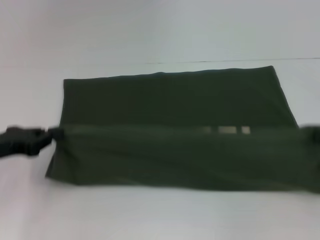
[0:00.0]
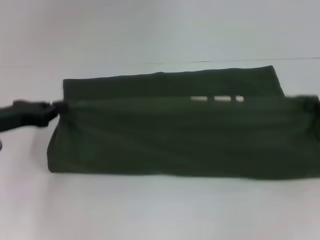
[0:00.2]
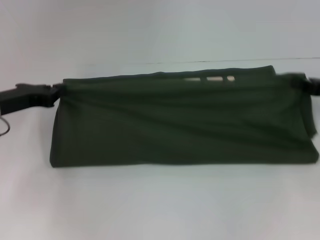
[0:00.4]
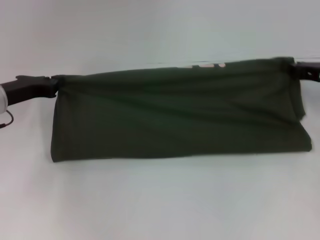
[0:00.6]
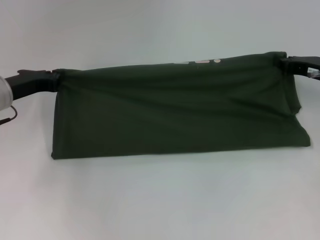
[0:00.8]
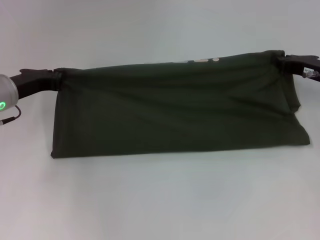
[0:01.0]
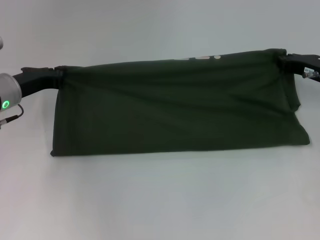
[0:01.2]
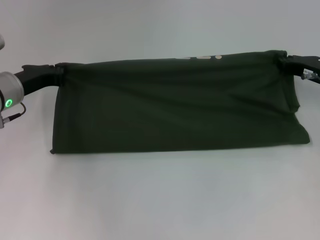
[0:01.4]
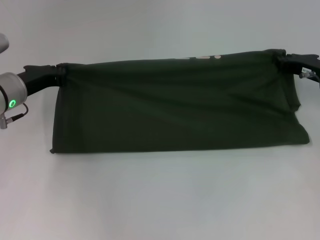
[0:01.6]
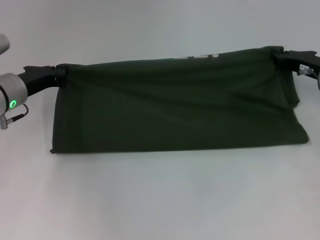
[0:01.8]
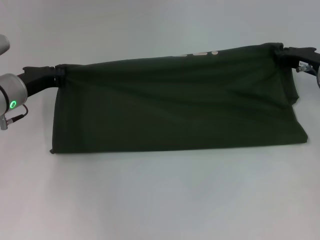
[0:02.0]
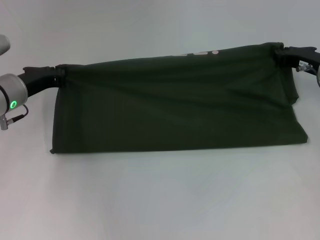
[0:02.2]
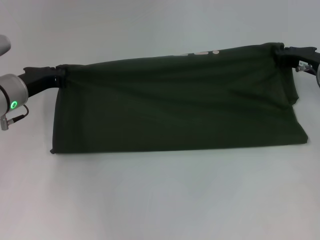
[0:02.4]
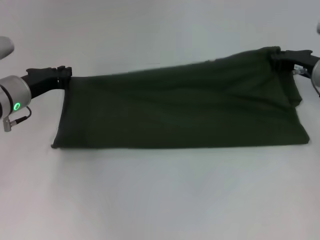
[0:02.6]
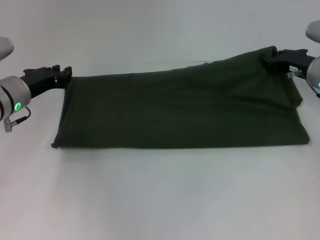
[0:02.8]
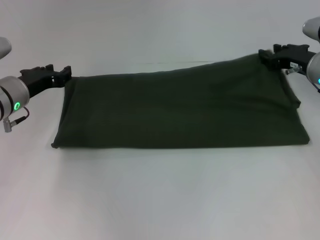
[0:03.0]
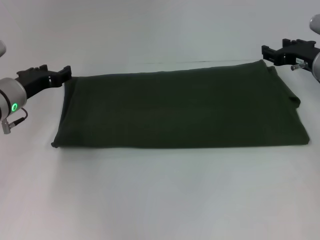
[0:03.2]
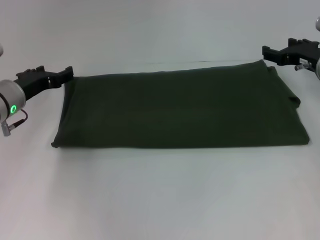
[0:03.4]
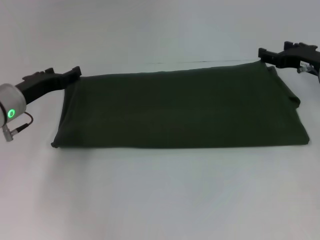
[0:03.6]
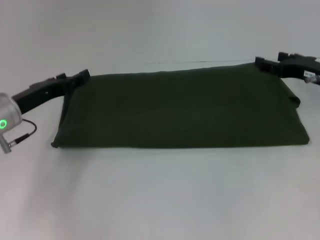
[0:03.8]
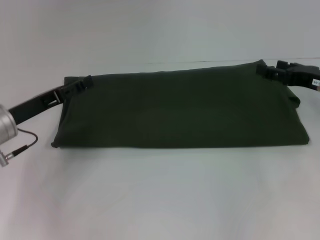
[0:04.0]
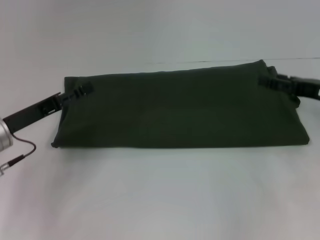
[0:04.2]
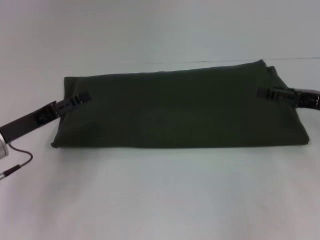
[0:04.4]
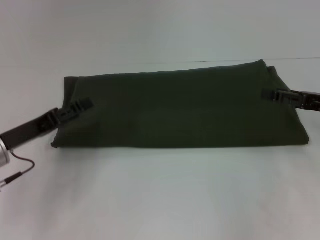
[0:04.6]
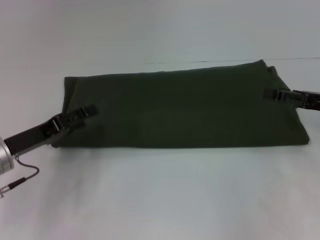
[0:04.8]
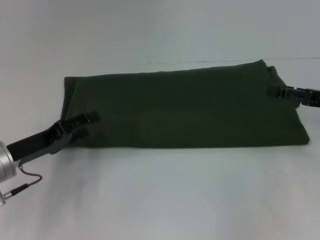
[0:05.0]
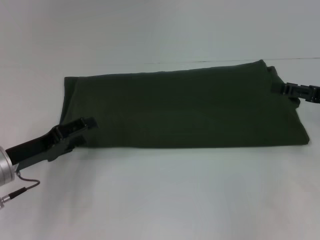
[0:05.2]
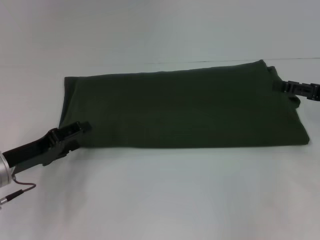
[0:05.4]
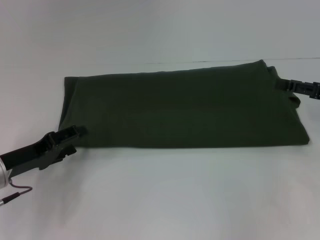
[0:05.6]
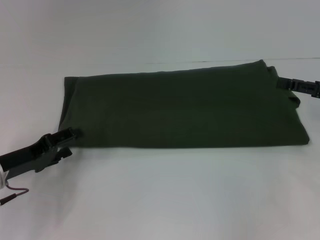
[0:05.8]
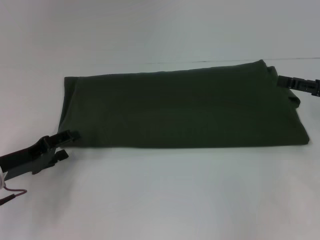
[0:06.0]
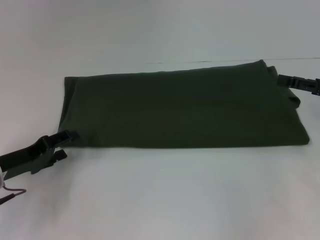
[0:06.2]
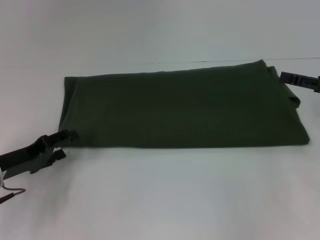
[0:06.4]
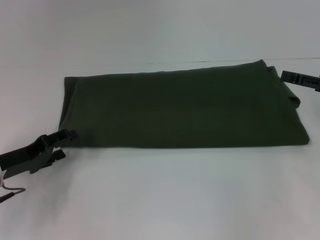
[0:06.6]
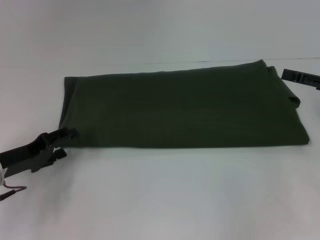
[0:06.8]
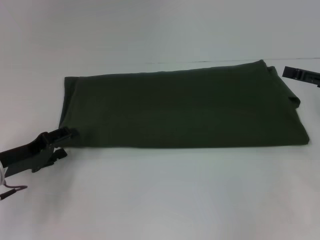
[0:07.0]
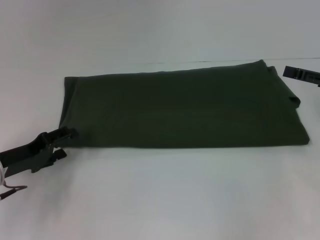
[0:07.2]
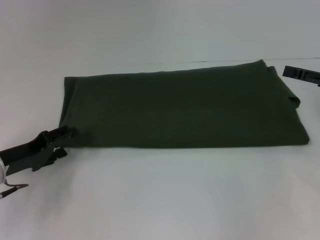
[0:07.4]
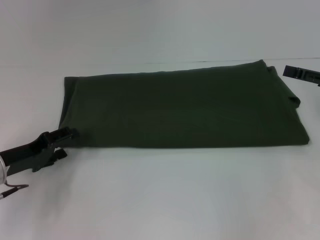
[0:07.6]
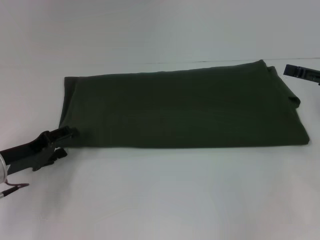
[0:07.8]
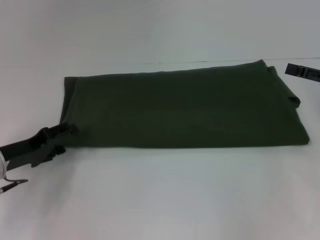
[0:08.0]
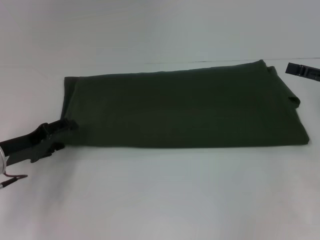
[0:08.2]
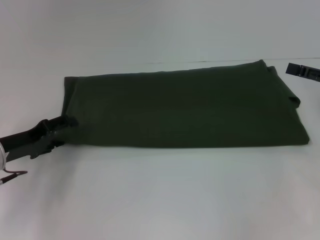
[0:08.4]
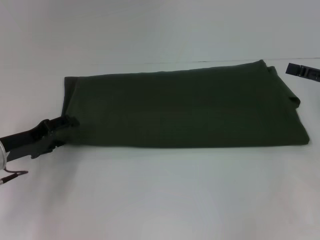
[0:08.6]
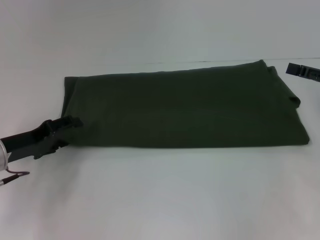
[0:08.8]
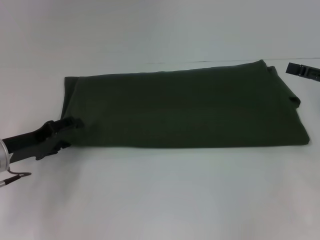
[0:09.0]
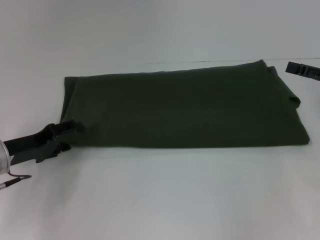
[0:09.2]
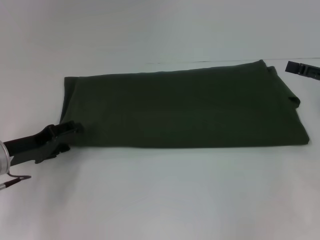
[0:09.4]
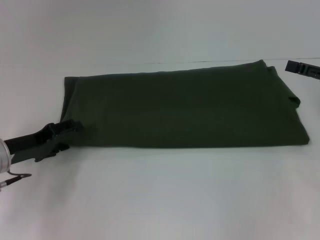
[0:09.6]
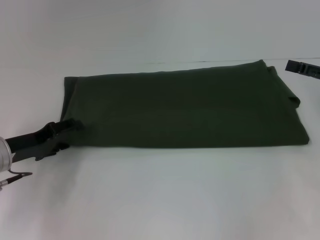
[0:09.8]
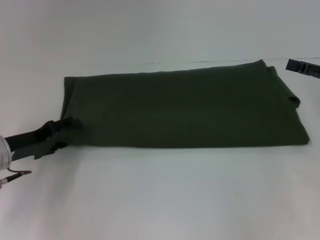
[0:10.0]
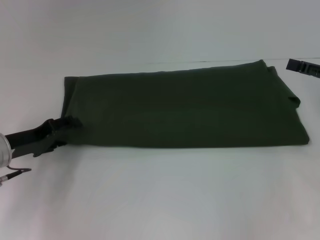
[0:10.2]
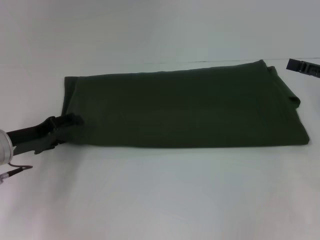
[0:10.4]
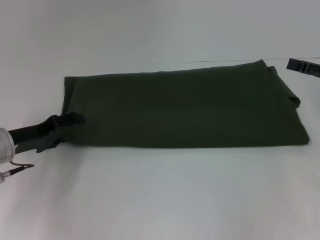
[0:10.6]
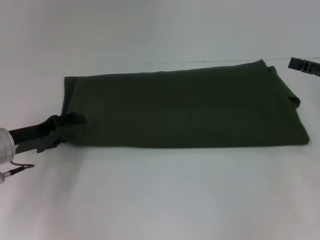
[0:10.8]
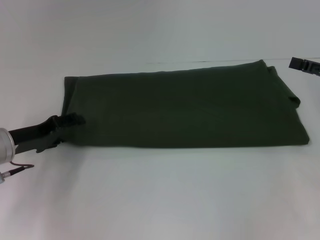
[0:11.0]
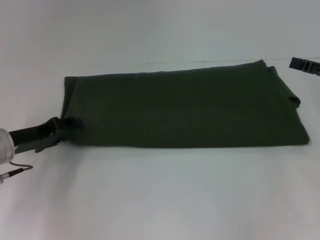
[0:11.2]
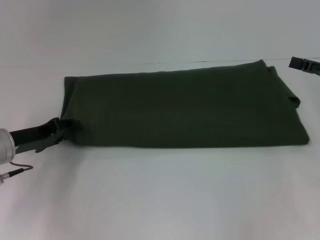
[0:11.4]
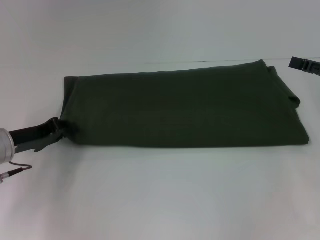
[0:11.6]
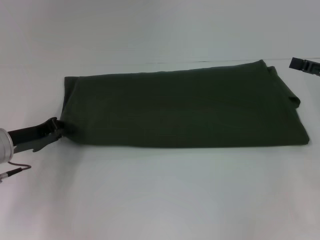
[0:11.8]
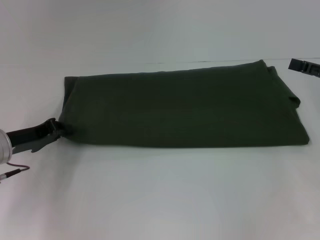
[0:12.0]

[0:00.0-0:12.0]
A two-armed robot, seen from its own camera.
Step, 0:00.0 to 0:04.0: Fold the clothes with your right hand.
0:00.0 to 0:01.6: The right gripper shifts about 15 cm forward and to the left; the left gripper shifts about 15 cm forward and to the right.
0:01.6 to 0:03.0: The grippers move only a little.
0:03.0 to 0:04.4: Both grippers travel together backward, approximately 10 cm. The right gripper opens up, while the left gripper opens.
0:06.0 to 0:07.6: Neither gripper changes place.
0:07.6 to 0:10.4: The grippers stay close to where they were, moving slightly.
0:10.4 to 0:12.0: The left gripper closes its fingers.

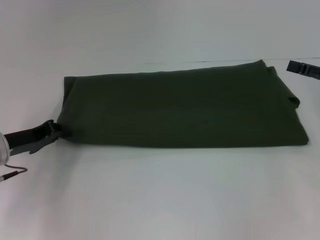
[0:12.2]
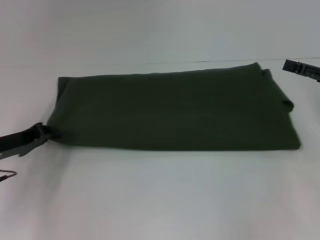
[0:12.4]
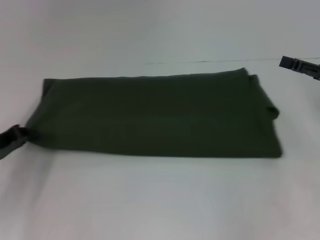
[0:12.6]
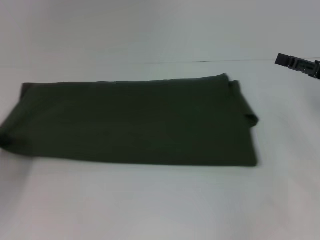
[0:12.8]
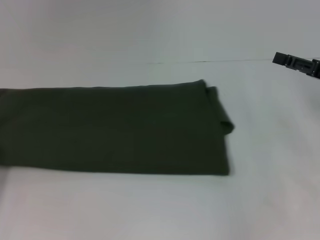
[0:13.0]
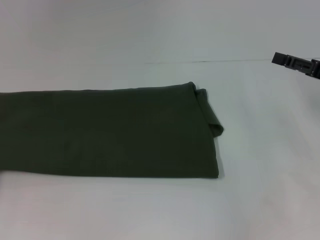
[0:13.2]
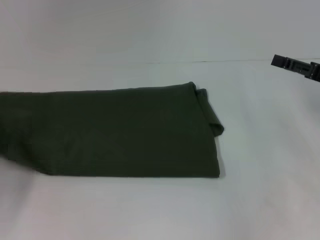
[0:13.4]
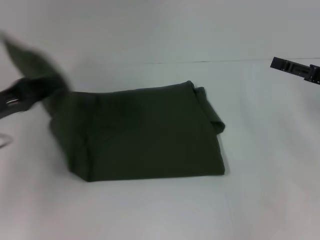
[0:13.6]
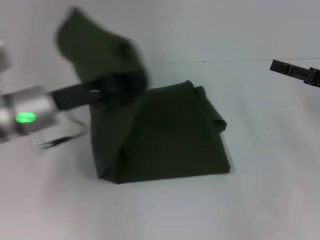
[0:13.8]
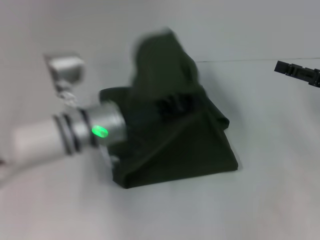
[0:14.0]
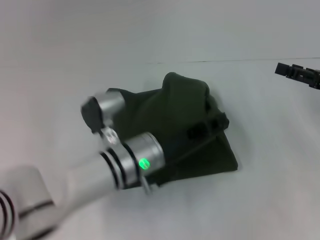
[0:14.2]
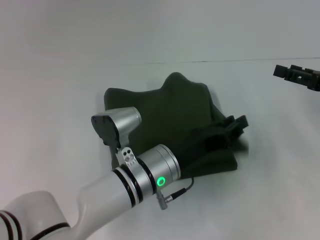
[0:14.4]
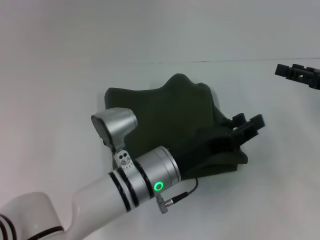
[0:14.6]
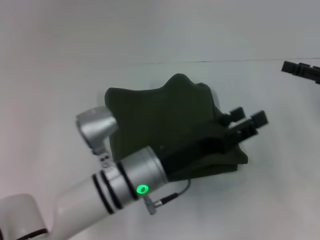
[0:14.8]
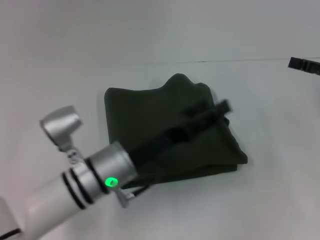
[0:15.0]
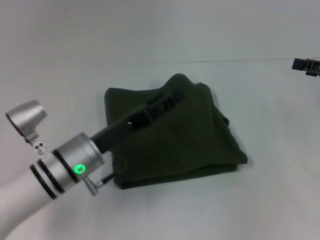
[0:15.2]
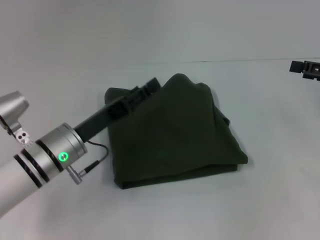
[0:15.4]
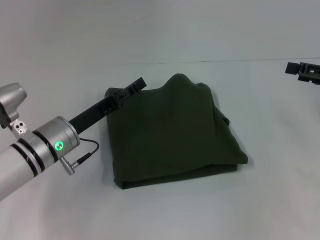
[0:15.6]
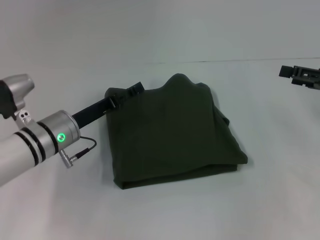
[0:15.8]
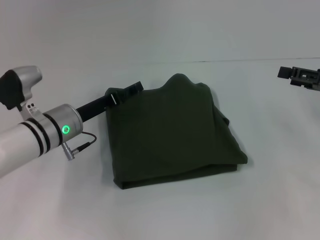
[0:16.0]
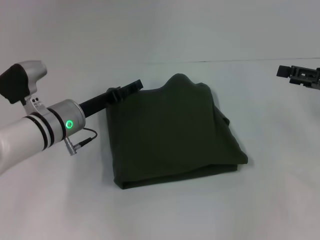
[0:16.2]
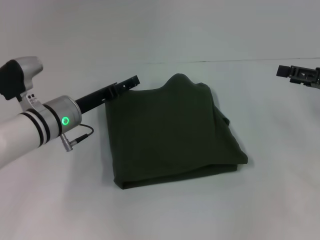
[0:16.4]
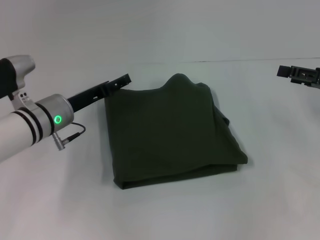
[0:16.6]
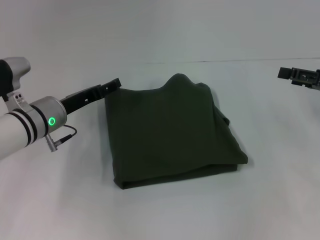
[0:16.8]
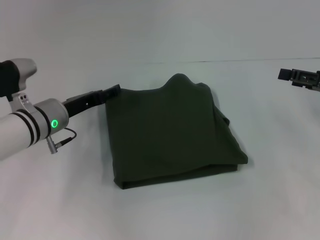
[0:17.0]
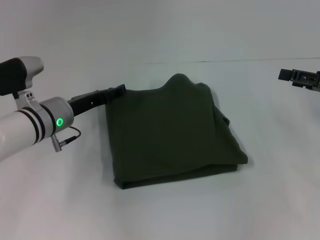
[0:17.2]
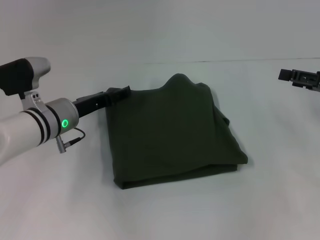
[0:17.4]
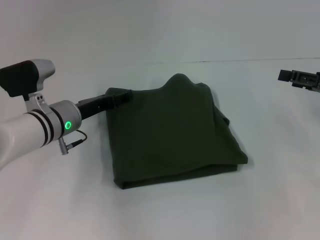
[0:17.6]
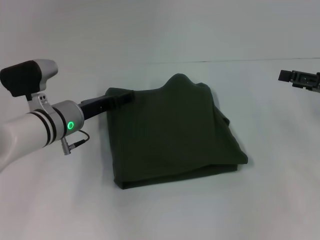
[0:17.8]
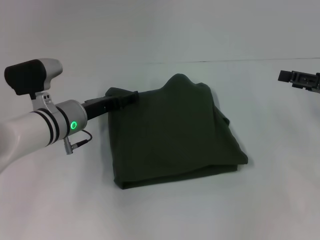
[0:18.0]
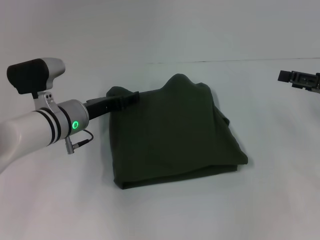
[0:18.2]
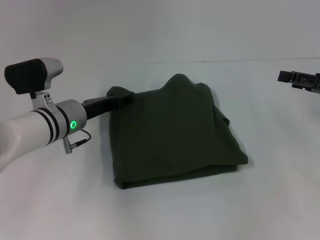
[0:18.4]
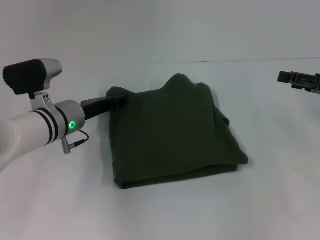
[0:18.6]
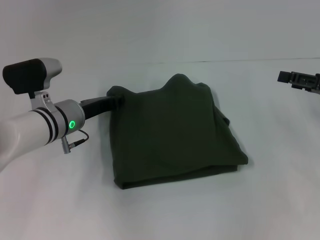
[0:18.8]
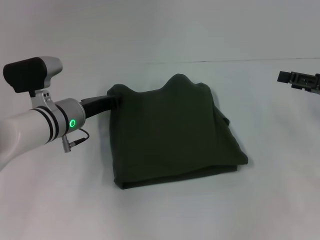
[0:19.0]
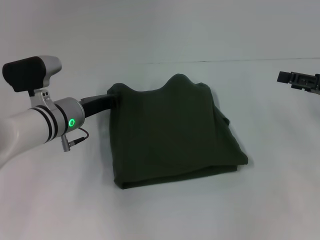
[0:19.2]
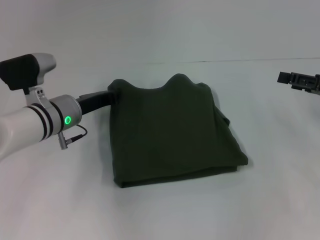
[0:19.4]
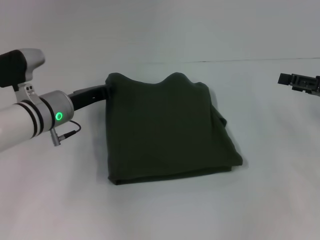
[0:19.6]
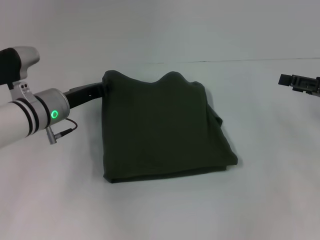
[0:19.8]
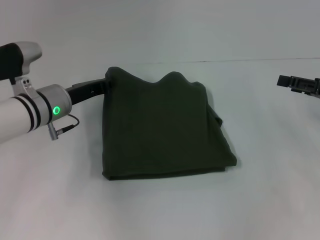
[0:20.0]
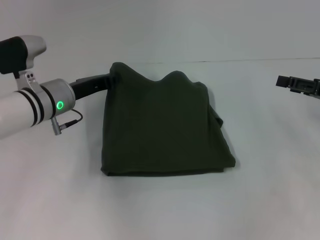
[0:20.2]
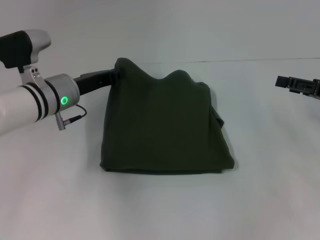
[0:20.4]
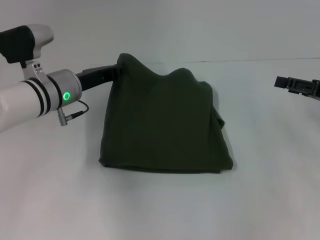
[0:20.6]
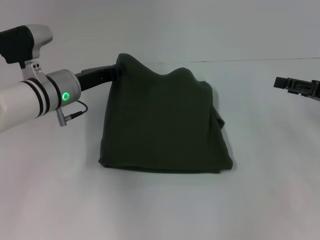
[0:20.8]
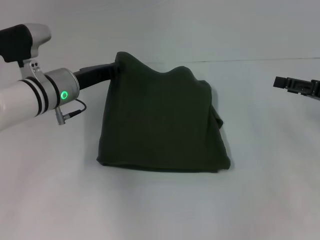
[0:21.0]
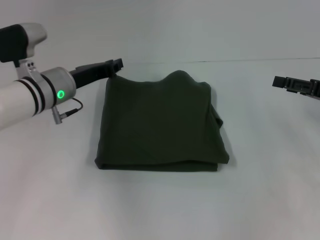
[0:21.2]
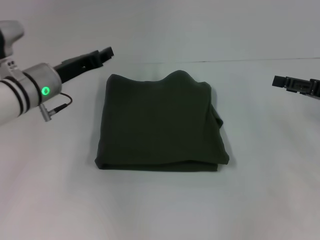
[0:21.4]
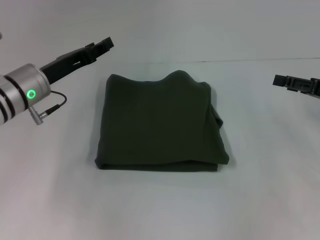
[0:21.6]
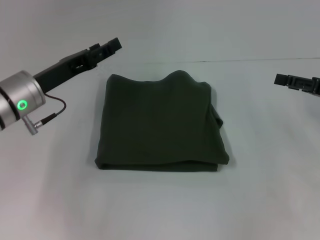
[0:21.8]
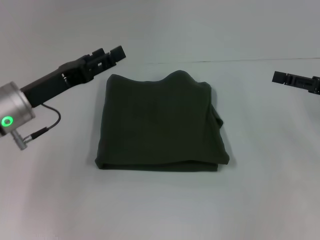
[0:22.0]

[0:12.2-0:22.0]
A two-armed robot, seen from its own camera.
Step, 0:12.2 to 0:14.6: Fold the clothes with your left hand.
0:12.2 to 0:13.6: The left gripper shifts about 5 cm upward, and travels to the left and back again, approximately 15 cm each way.
0:13.6 to 0:15.0: The left gripper is displaced to the right by roughly 20 cm, and opens its fingers.
0:15.0 to 0:16.4: The left gripper is displaced forward and to the left by roughly 15 cm.
0:16.4 to 0:17.8: The grippers move only a little.
0:17.8 to 0:19.2: The left gripper closes its fingers.
0:19.2 to 0:20.6: There are only small adjustments of the grippers.
0:20.6 to 0:22.0: The left gripper goes about 10 cm backward and to the left, and opens up.
